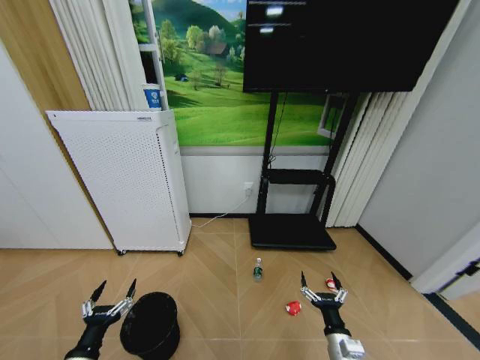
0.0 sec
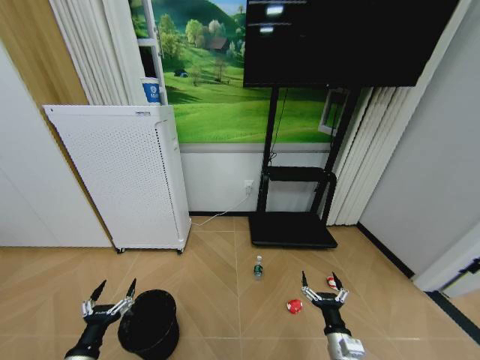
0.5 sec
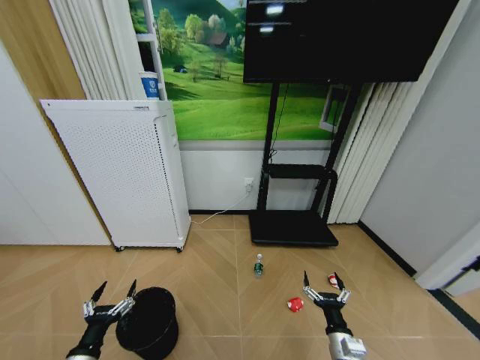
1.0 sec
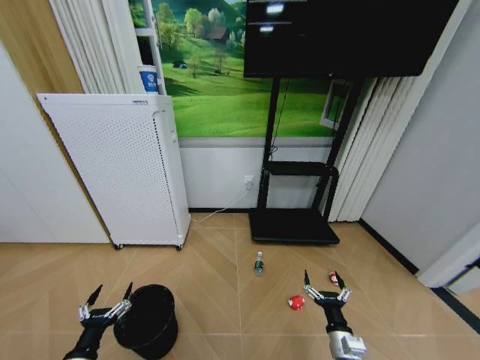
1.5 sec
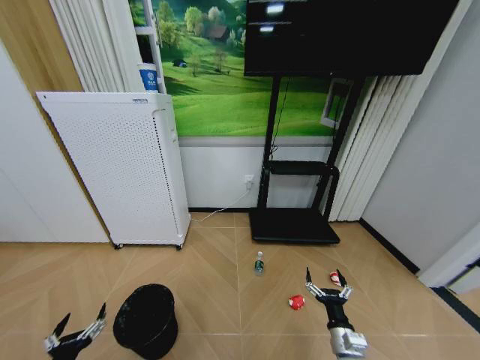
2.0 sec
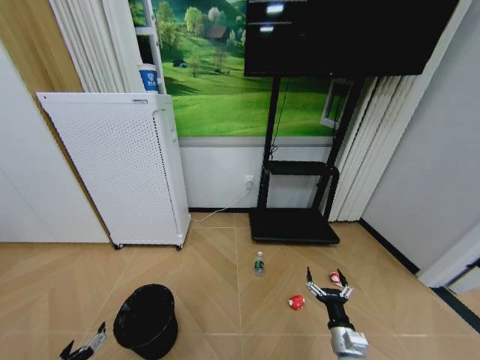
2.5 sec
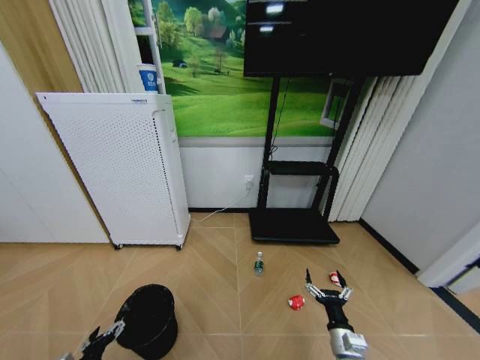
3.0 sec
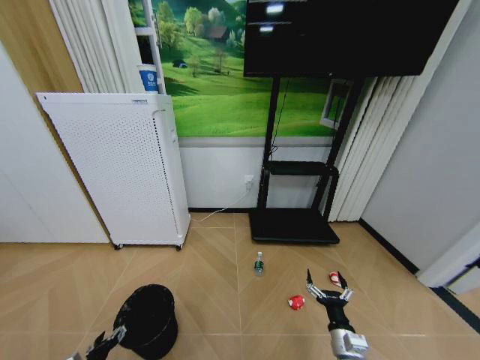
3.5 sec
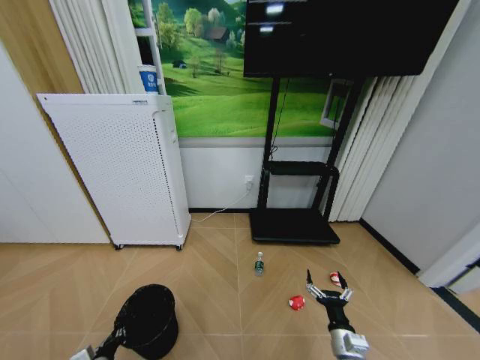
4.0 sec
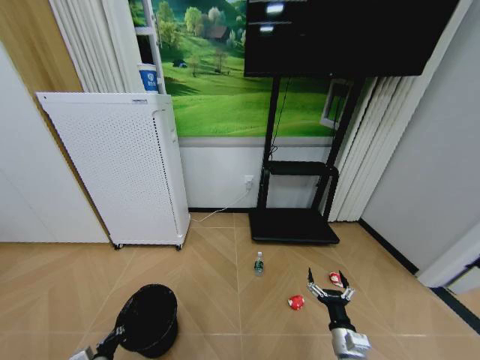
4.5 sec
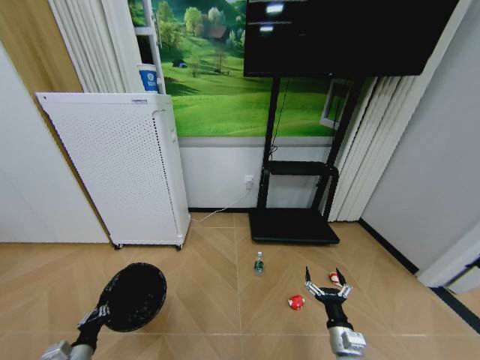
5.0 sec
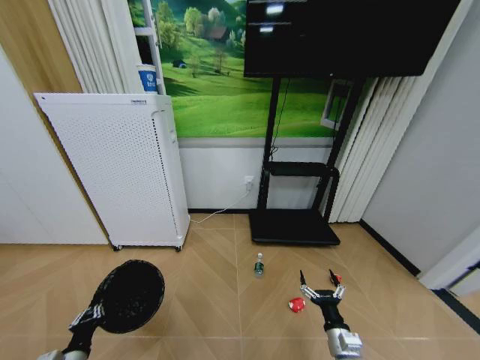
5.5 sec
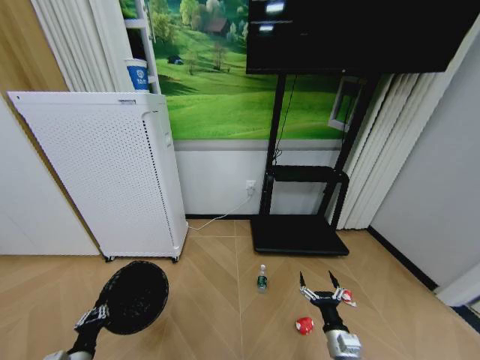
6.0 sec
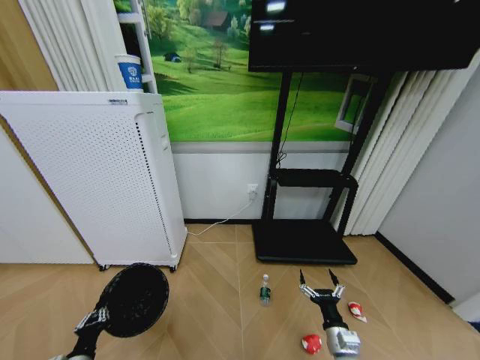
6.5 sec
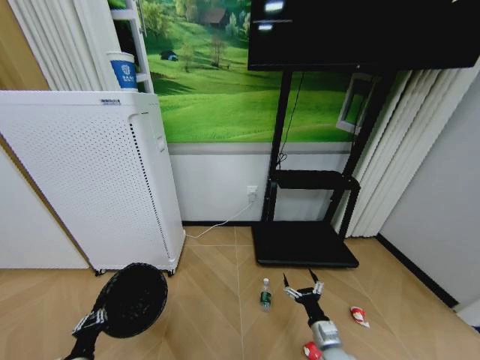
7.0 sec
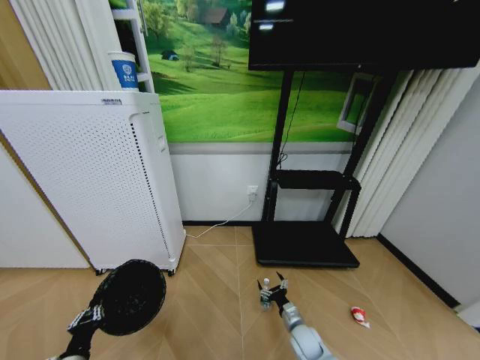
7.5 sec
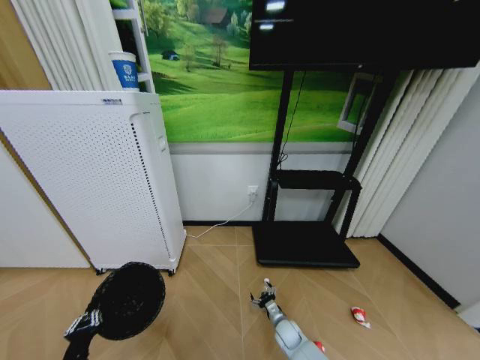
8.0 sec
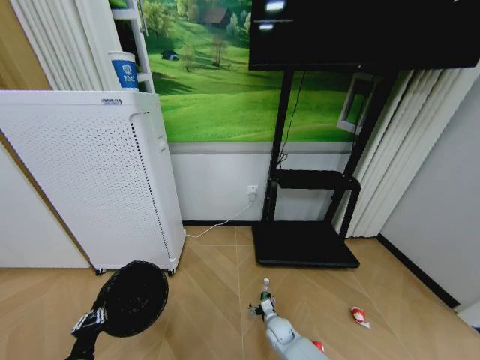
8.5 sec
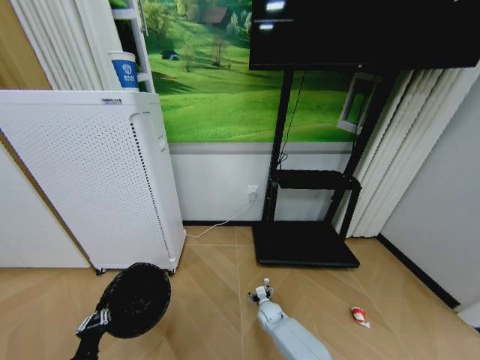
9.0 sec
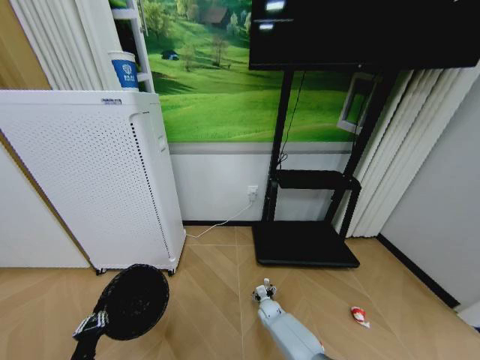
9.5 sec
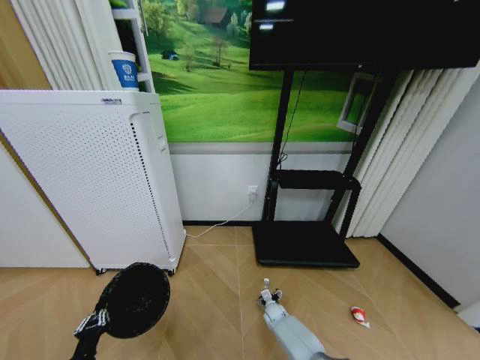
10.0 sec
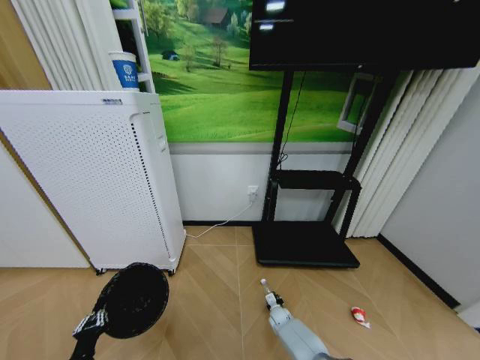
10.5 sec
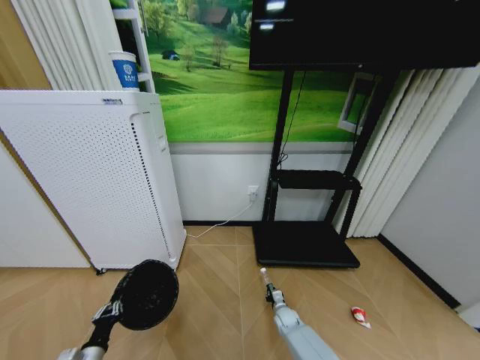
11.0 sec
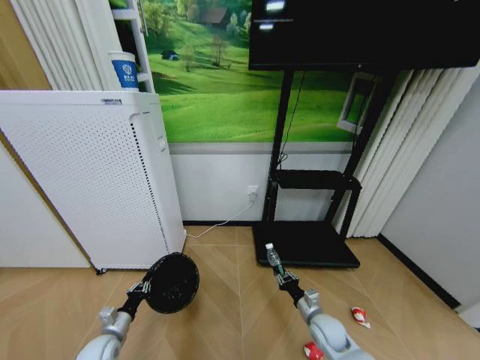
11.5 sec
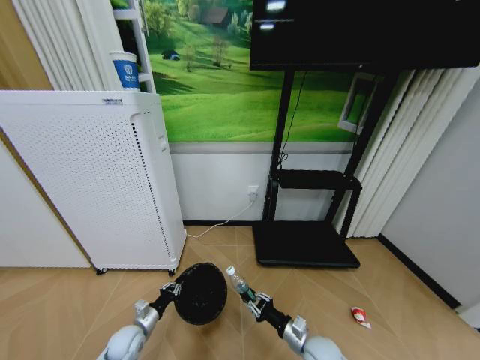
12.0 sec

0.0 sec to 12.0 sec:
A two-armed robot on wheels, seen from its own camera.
Task of the whole recording: Pick up the trash bin and place the garbage on the floor into it.
0.0 sec to 2.0 sec: The grippers stay close to where they were, moving slightly.
2.0 sec to 4.0 sec: The left gripper is displaced downward and forward by some 10 cm, and closes its fingers.
4.0 sec to 6.0 sec: The left gripper heads upward, covering approximately 5 cm.
6.0 sec to 8.0 sec: The right gripper travels downward, forward and to the left by approximately 20 cm.
8.0 sec to 10.0 sec: The right gripper moves forward, some 5 cm.
10.0 sec to 12.0 sec: The right gripper travels upward and backward by approximately 25 cm, and closes up, while the left gripper heads forward, covering some 15 cm.

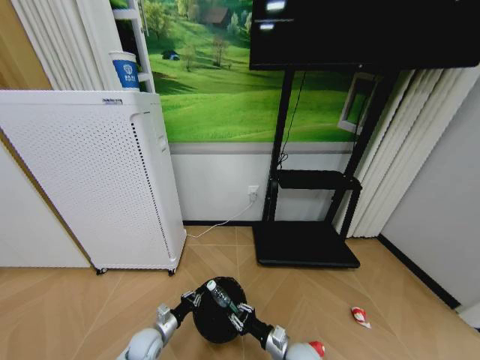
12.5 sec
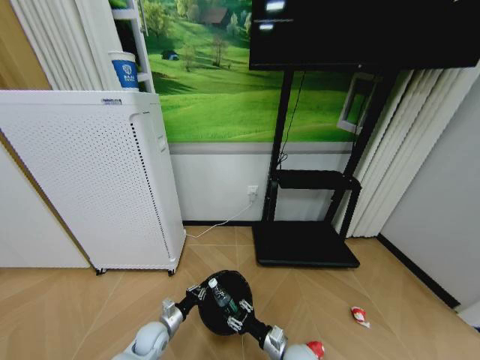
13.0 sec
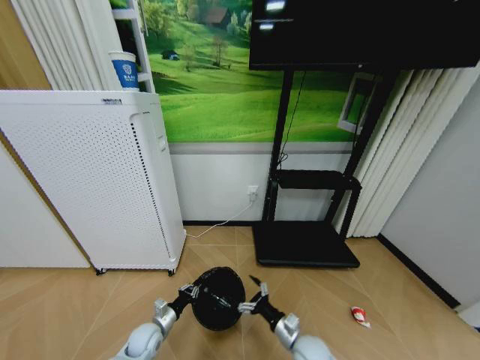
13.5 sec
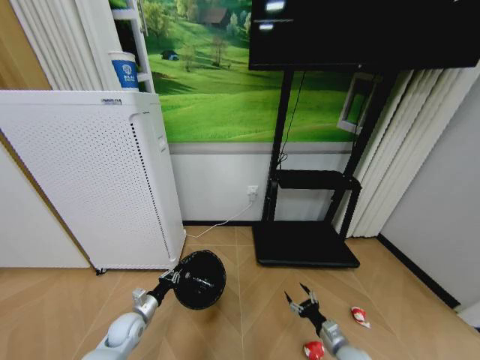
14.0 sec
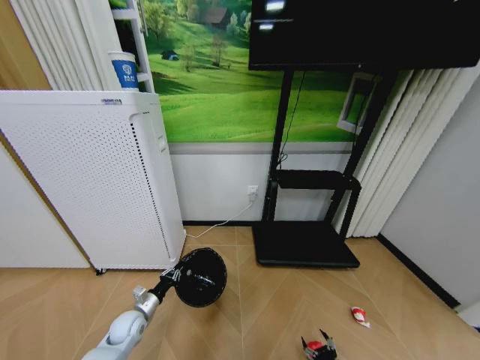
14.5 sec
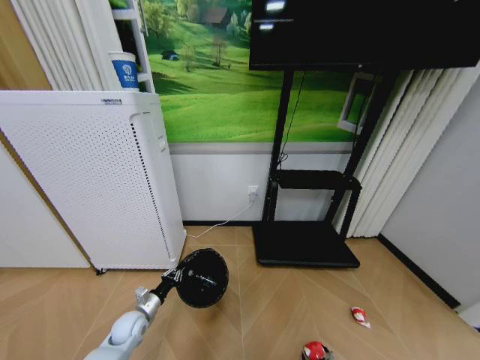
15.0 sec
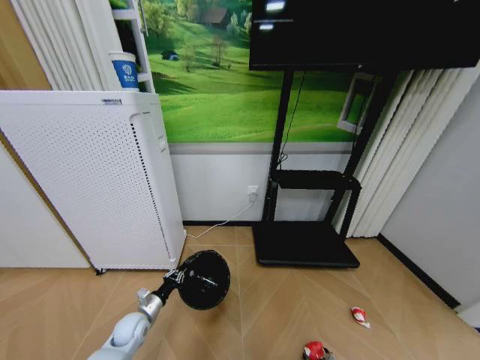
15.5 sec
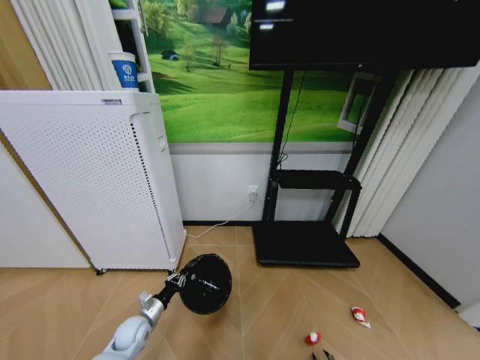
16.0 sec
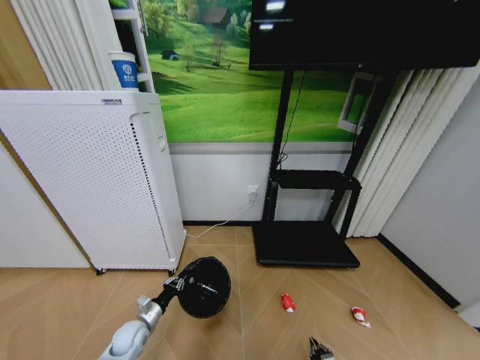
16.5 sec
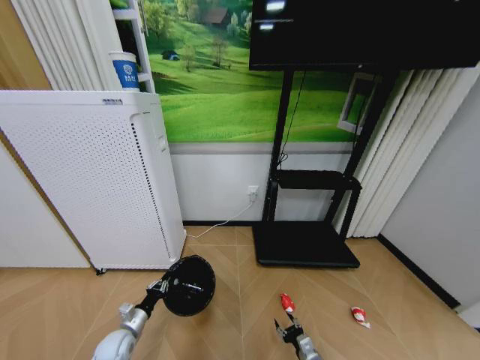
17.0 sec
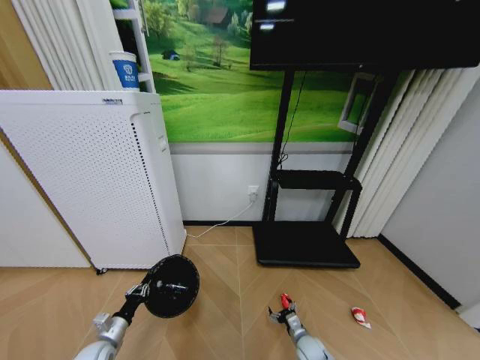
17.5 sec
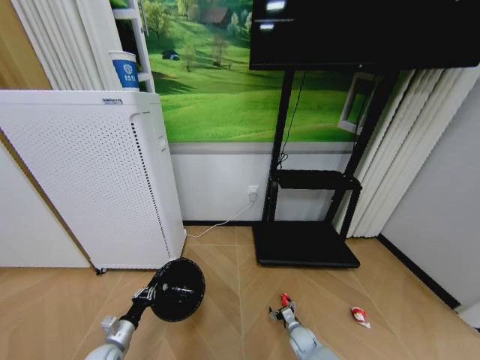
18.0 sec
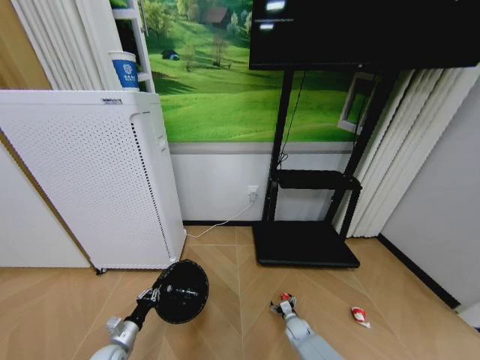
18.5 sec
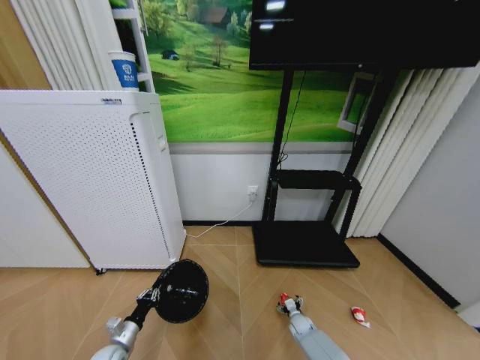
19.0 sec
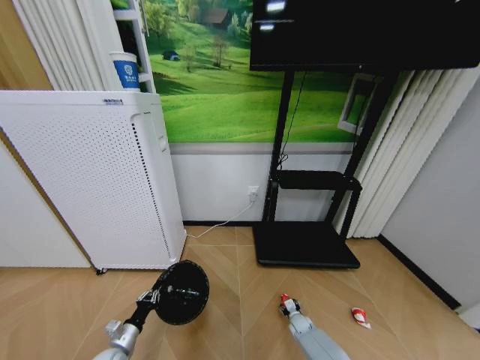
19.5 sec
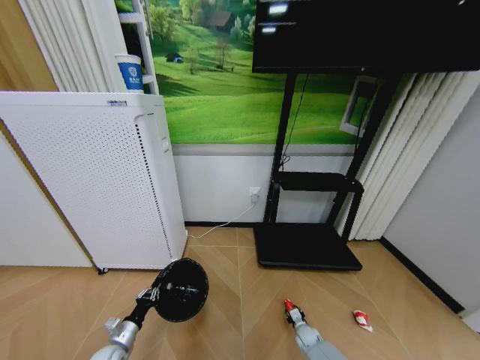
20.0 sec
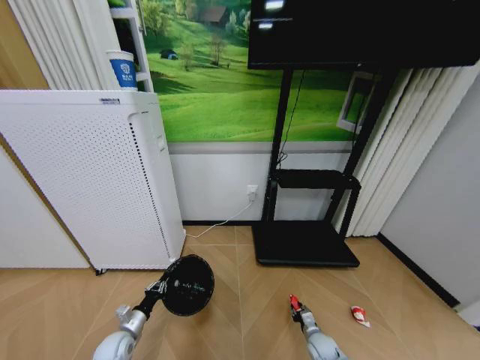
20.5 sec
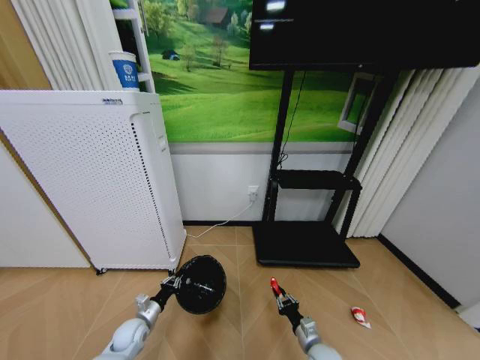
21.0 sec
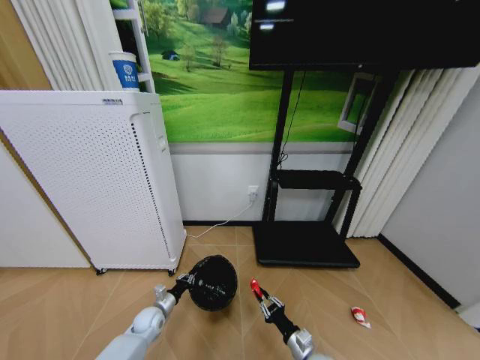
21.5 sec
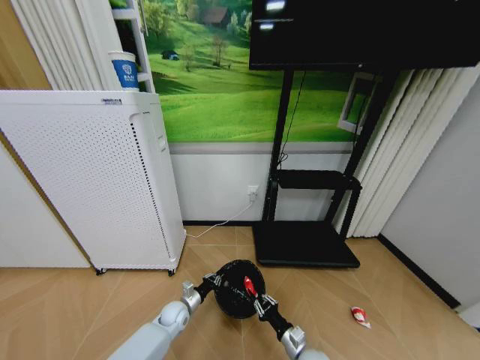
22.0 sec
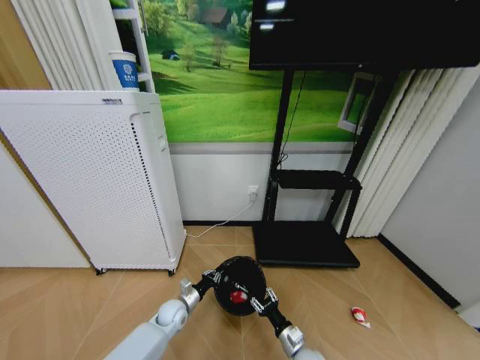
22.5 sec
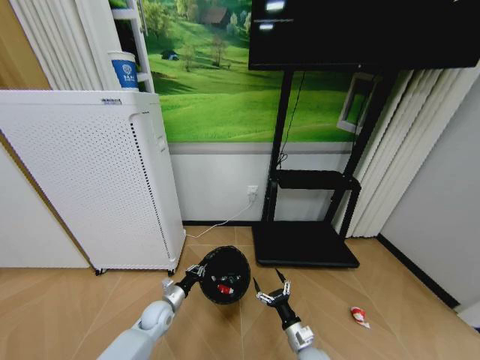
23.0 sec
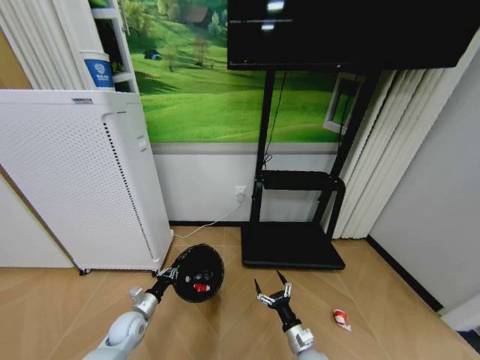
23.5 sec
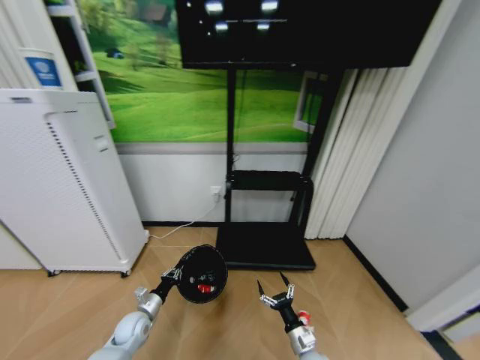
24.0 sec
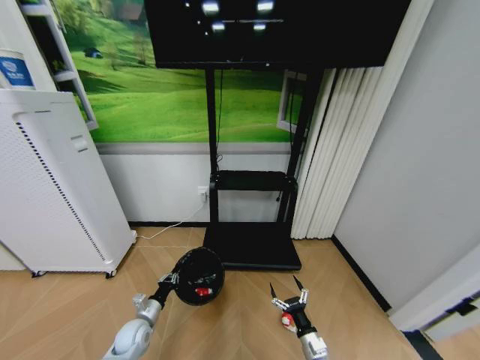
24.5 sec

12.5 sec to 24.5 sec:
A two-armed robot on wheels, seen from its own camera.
Task of the whole recording: Pick up the trash bin and place the garbage on the floor into it.
12.5 sec to 14.5 sec: The right gripper travels to the right, downward and backward by approximately 20 cm, and opens up, while the left gripper is displaced to the left by roughly 5 cm.
14.5 sec to 16.5 sec: The right gripper closes its fingers.
16.5 sec to 18.5 sec: The left gripper moves backward, approximately 5 cm; the right gripper is displaced forward and to the left by approximately 20 cm, and opens up.
18.5 sec to 20.5 sec: The right gripper travels backward and to the right by approximately 10 cm, and closes up.
20.5 sec to 22.5 sec: The left gripper shifts about 20 cm to the right and forward. Meanwhile the right gripper moves to the left, upward and backward, about 15 cm.
22.5 sec to 24.5 sec: The left gripper moves to the left and backward, some 10 cm, while the right gripper shifts by roughly 5 cm, and opens up.

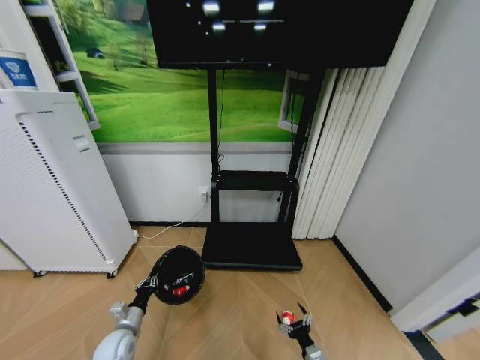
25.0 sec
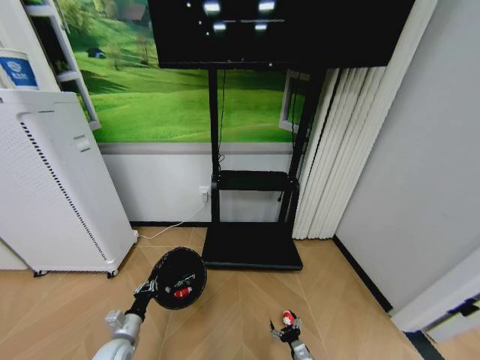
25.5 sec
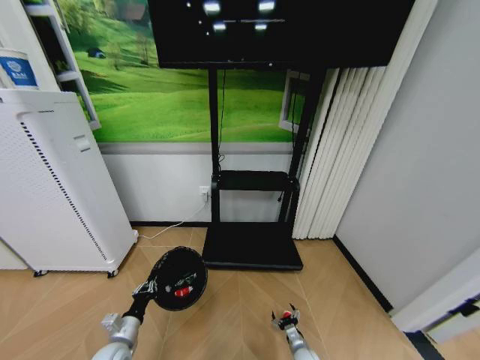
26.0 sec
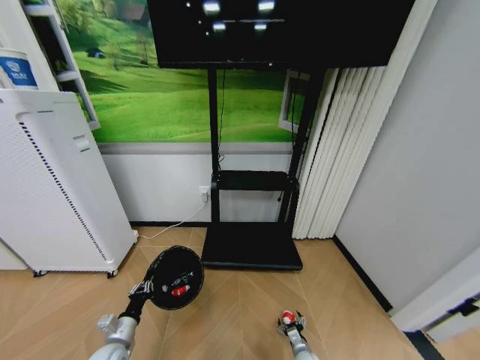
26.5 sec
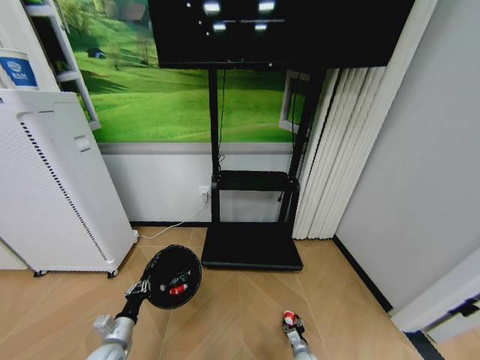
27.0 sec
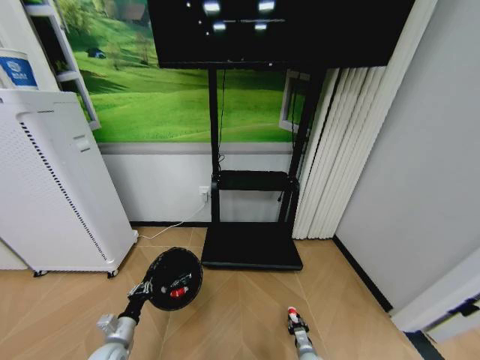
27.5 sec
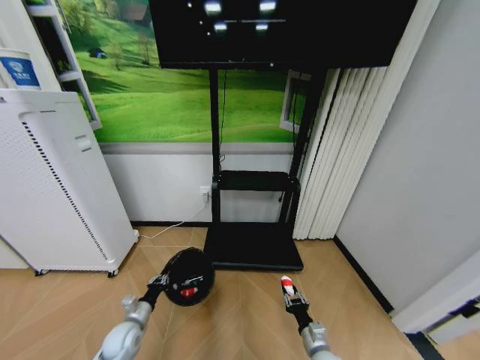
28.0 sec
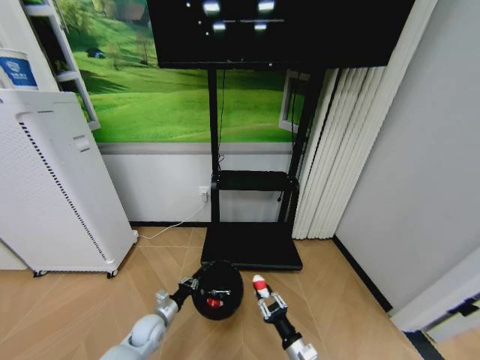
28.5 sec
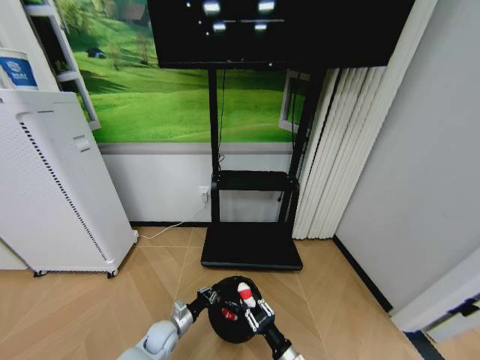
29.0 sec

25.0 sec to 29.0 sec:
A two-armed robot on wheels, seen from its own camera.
Task of the whole recording: Pick up the trash bin and place the garbage on the floor into it.
25.0 sec to 27.0 sec: The right gripper moves downward and forward, approximately 15 cm, and closes up.
27.0 sec to 29.0 sec: The right gripper shifts roughly 25 cm upward, backward and to the left, and closes. Meanwhile the left gripper travels to the right, forward and downward by about 15 cm.
